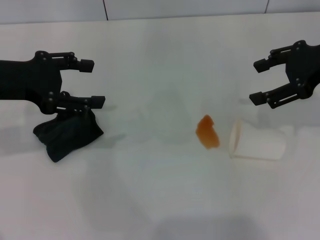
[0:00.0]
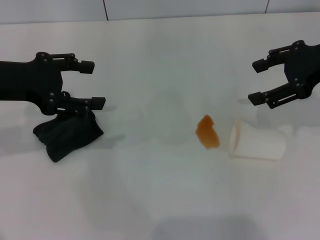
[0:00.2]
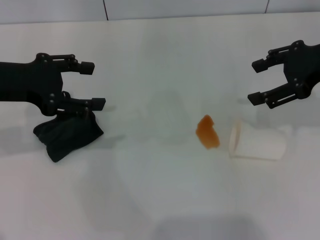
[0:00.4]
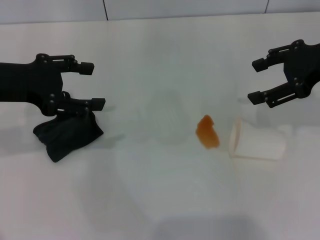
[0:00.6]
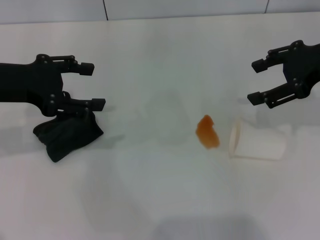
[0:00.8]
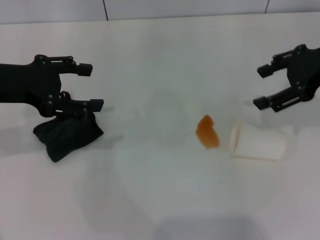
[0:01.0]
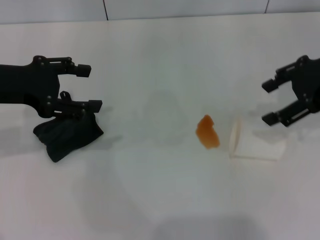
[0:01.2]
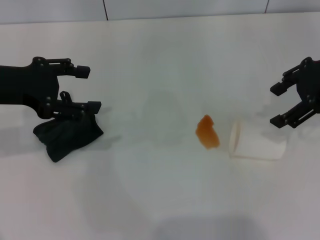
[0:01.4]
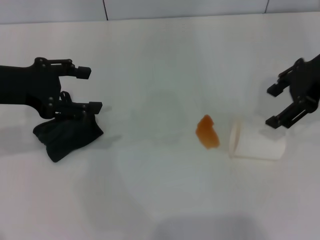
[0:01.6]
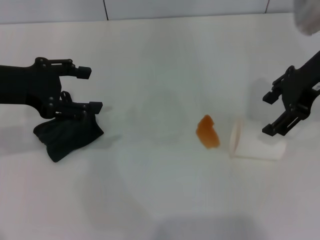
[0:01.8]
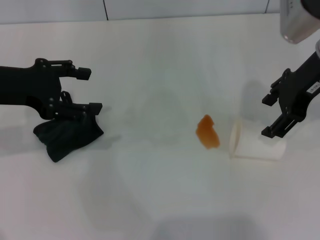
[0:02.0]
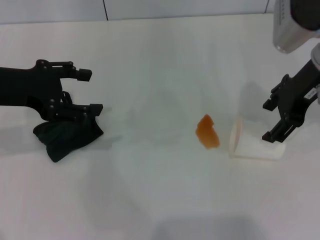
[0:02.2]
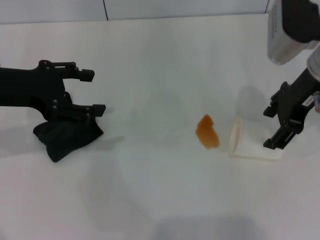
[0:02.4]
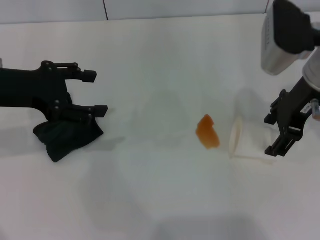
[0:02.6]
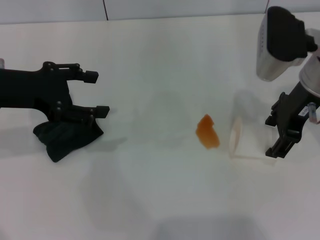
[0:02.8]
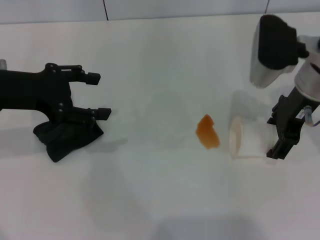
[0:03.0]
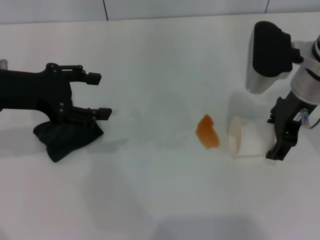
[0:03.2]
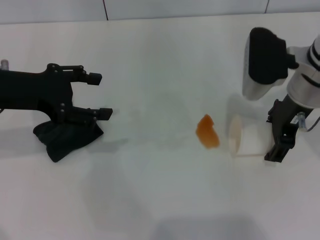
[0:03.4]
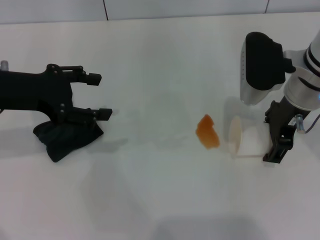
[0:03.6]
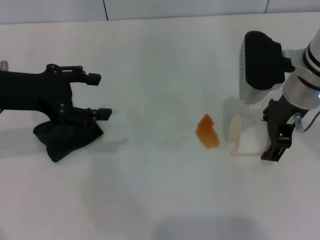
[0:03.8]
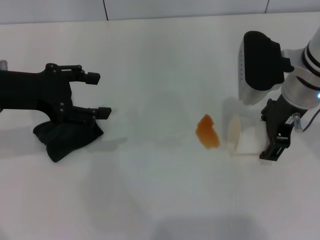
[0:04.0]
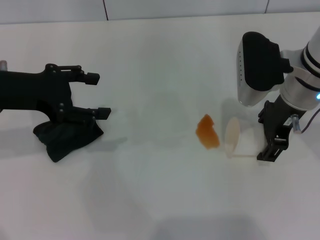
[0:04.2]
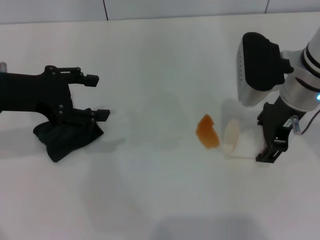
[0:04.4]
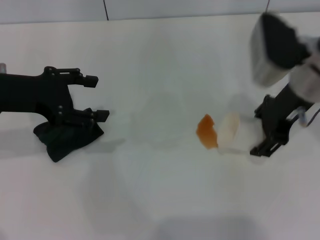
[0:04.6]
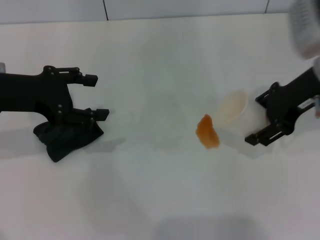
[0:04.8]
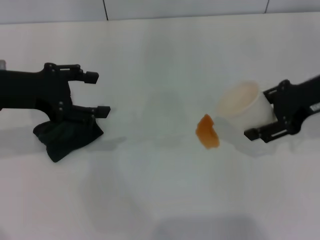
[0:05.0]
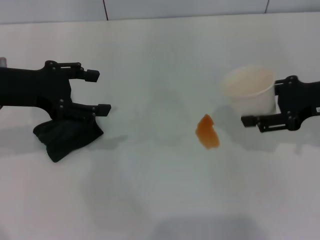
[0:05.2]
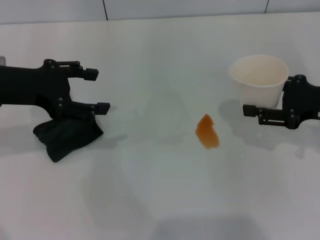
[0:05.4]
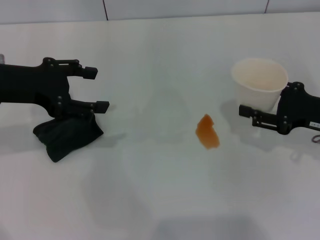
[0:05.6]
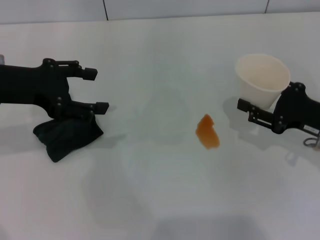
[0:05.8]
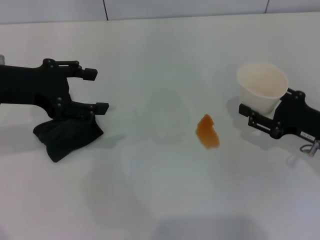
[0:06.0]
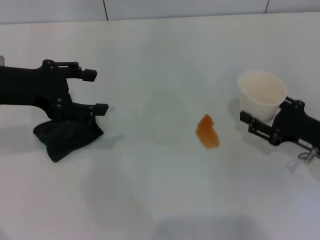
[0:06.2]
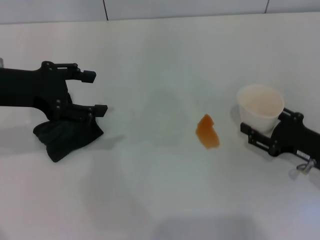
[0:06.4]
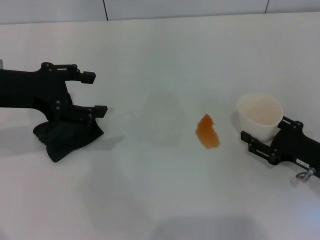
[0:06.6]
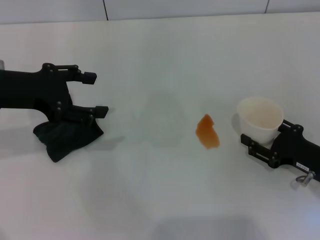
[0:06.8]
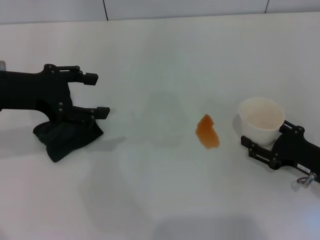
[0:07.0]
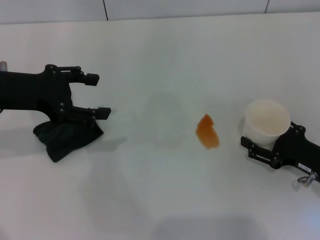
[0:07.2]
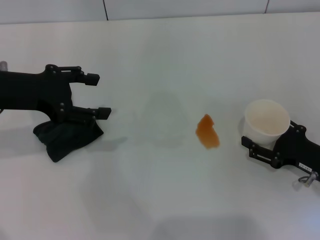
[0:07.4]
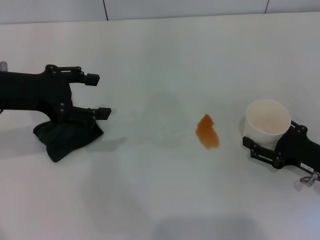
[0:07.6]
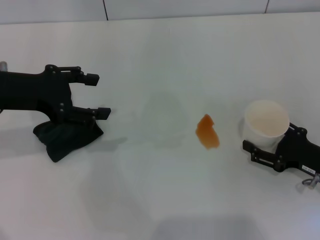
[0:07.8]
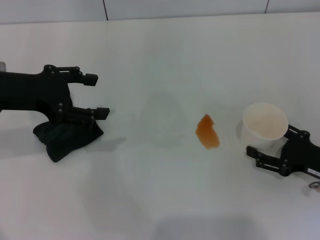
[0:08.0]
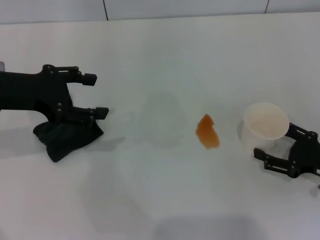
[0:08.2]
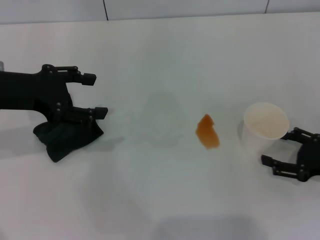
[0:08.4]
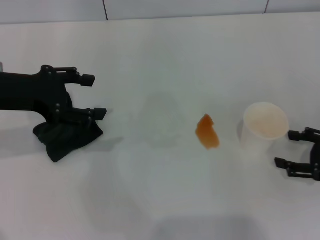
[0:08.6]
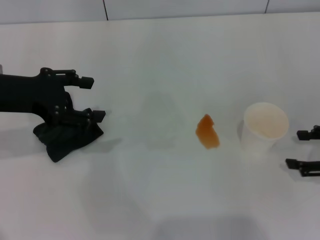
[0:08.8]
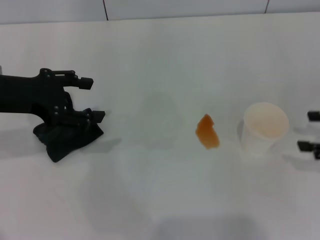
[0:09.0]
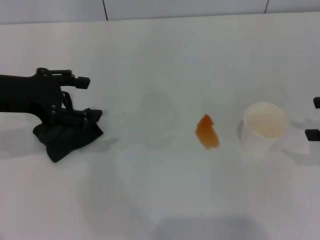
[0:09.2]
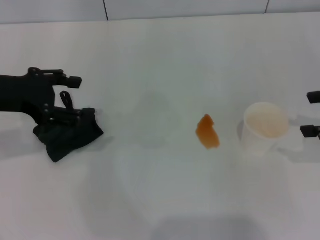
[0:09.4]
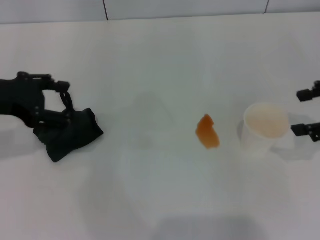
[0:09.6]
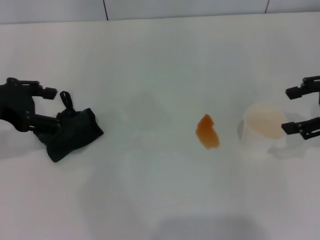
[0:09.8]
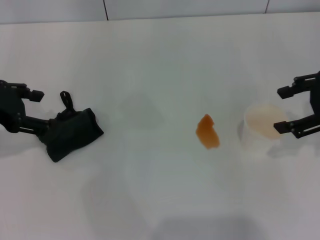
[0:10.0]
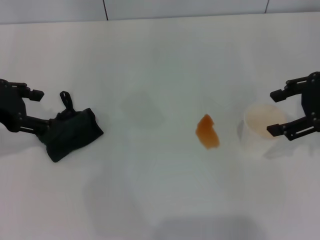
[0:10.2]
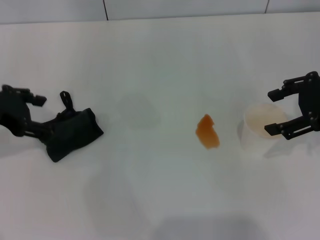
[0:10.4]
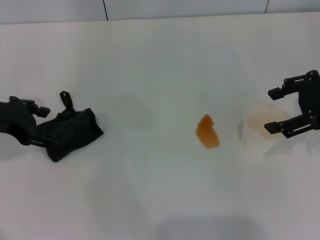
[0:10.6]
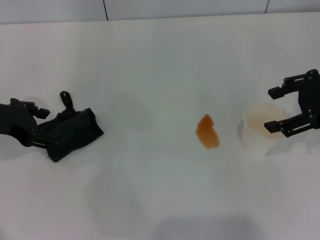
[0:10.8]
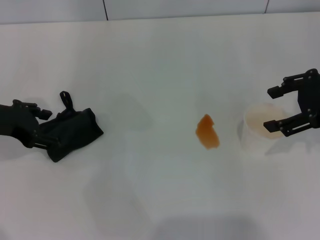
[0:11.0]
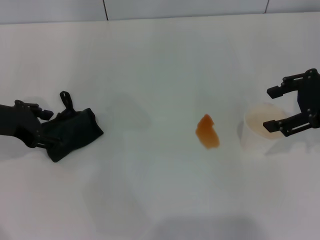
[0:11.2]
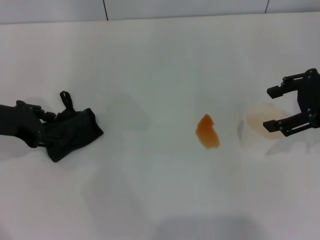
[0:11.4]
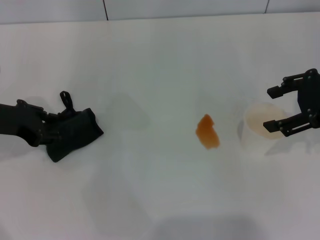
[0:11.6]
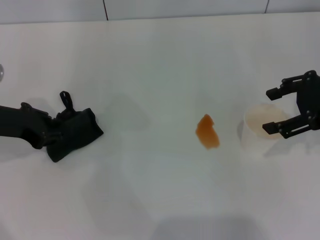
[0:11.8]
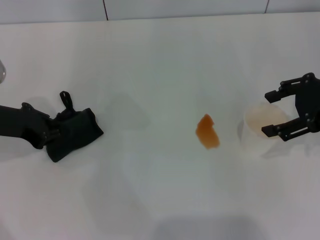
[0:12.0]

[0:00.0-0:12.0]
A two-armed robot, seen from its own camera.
Step, 0:00.0 to 0:04.2: Grasp the paper cup with the right gripper.
Step, 0:04.4 to 0:08.2: Stand the paper cup upright with the right gripper.
0:01.6 to 0:03.0: The right gripper heads downward and to the left, covering roughly 10 cm.
0:03.0 to 0:04.4: The right gripper closes up.
0:04.4 to 0:06.0: The right gripper heads downward, to the right and backward, covering roughly 20 cm, and closes up.
0:06.0 to 0:07.6: The right gripper moves roughly 5 cm, and opens its fingers.
0:07.6 to 0:09.0: The right gripper shifts about 15 cm upward and to the right.
0:09.0 to 0:10.4: The right gripper travels to the left, upward and forward by approximately 10 cm.
0:10.4 to 0:12.0: The left gripper ends up roughly 5 cm from where it was, and closes.

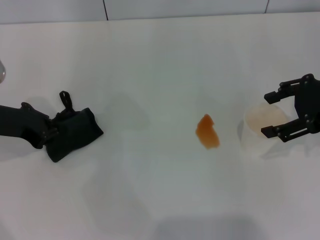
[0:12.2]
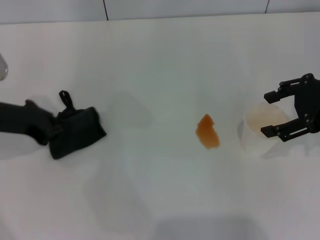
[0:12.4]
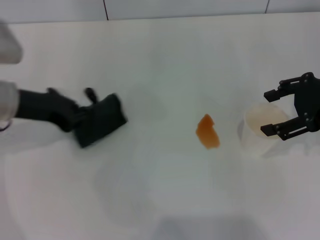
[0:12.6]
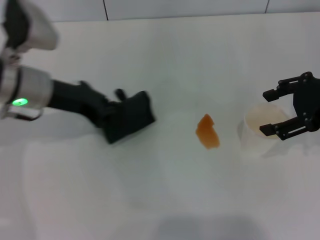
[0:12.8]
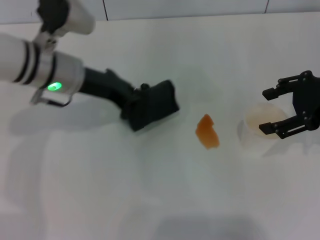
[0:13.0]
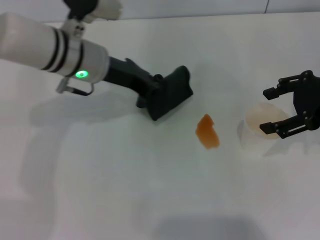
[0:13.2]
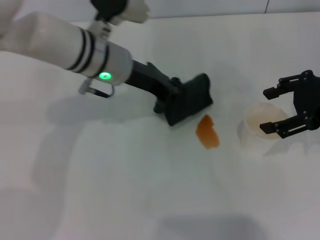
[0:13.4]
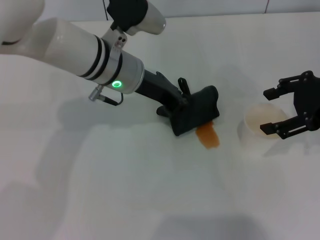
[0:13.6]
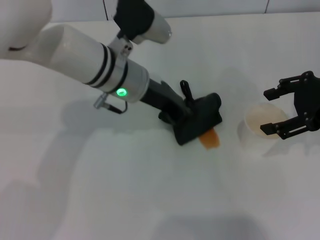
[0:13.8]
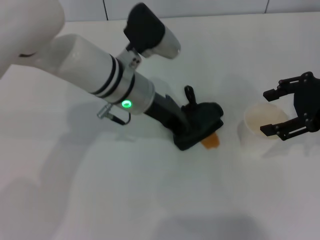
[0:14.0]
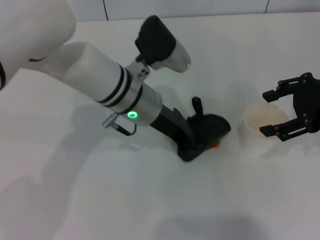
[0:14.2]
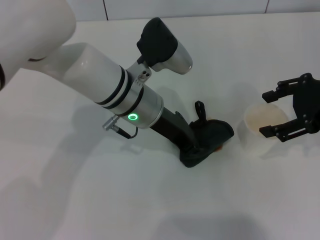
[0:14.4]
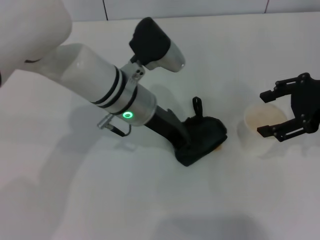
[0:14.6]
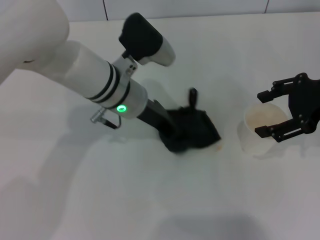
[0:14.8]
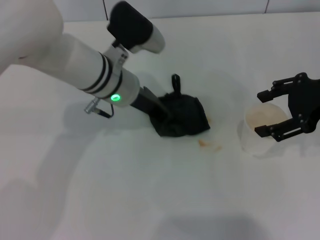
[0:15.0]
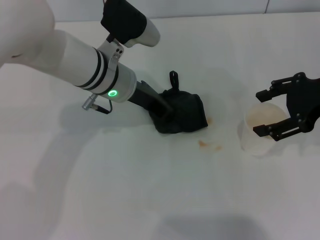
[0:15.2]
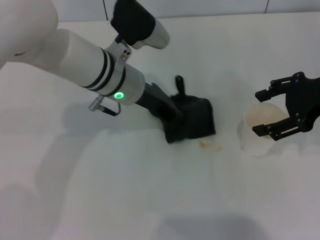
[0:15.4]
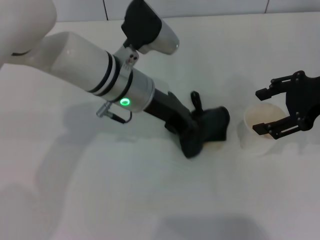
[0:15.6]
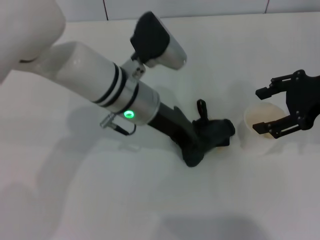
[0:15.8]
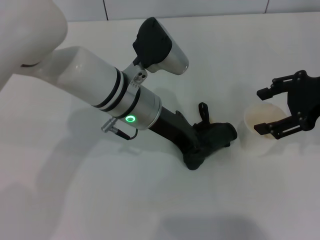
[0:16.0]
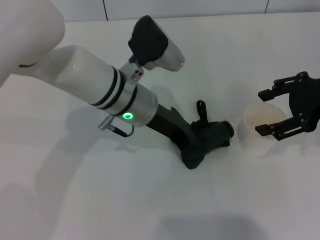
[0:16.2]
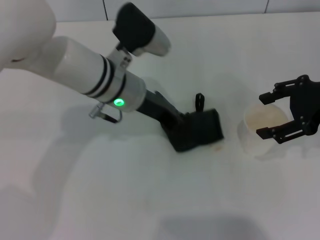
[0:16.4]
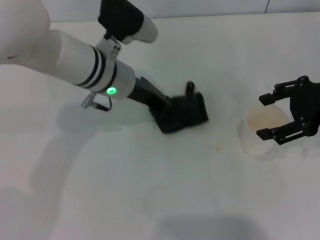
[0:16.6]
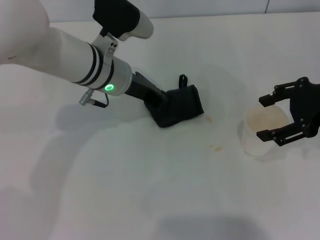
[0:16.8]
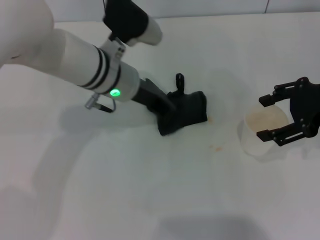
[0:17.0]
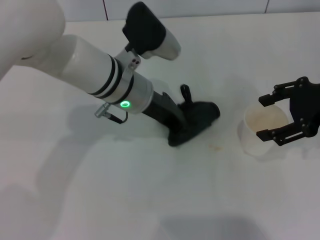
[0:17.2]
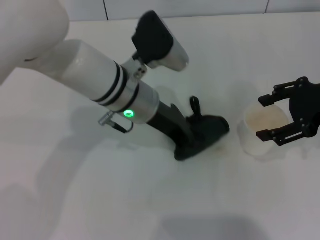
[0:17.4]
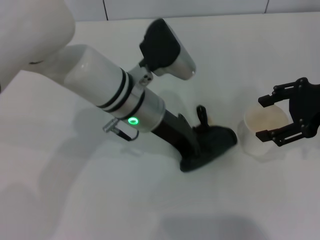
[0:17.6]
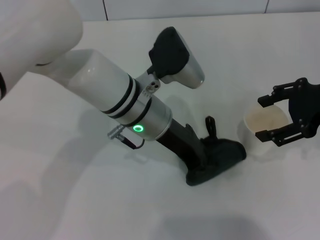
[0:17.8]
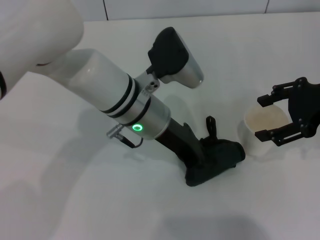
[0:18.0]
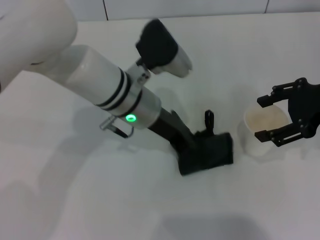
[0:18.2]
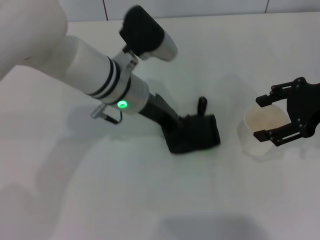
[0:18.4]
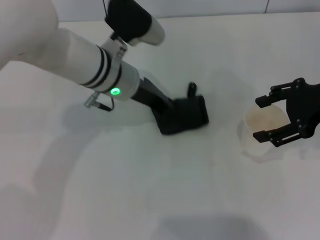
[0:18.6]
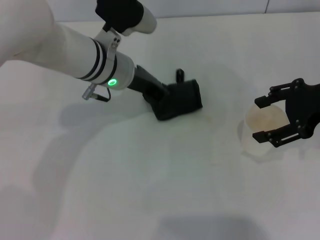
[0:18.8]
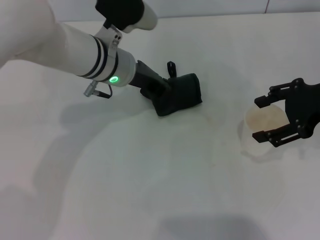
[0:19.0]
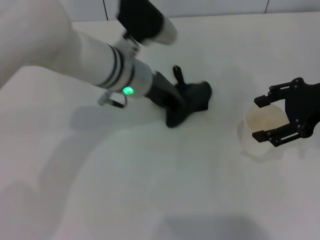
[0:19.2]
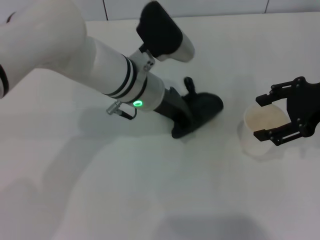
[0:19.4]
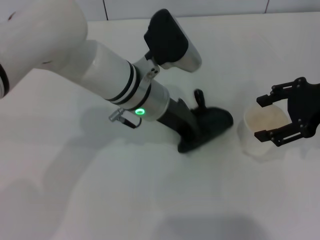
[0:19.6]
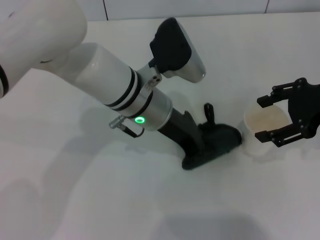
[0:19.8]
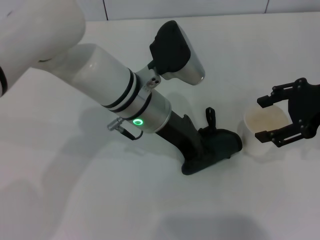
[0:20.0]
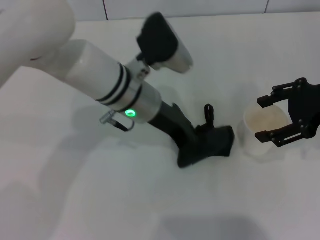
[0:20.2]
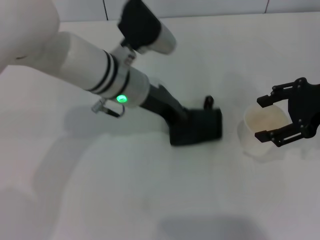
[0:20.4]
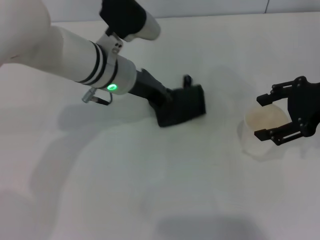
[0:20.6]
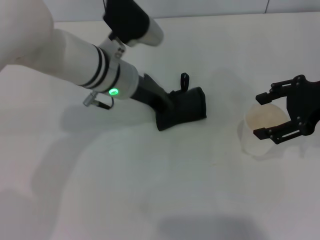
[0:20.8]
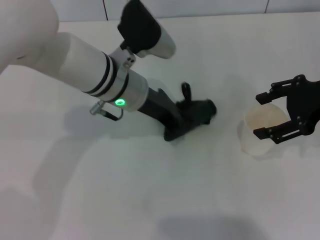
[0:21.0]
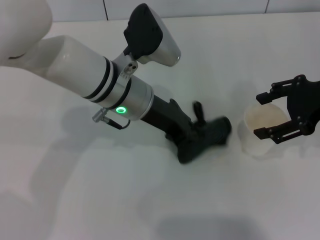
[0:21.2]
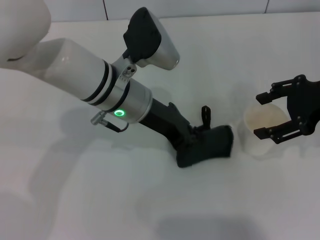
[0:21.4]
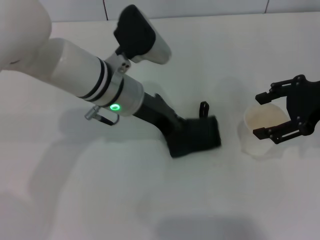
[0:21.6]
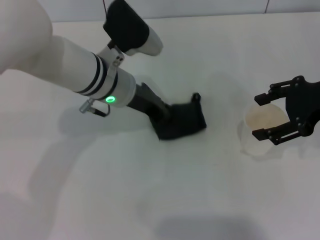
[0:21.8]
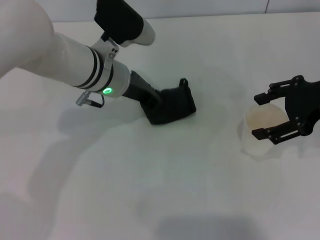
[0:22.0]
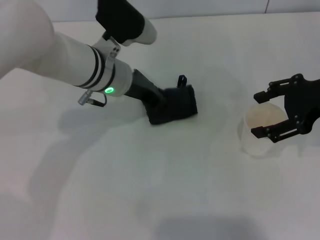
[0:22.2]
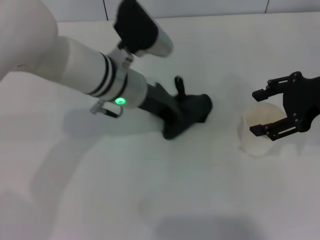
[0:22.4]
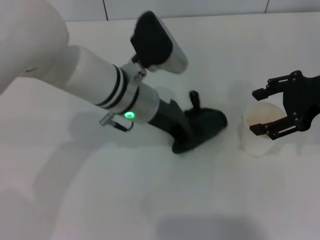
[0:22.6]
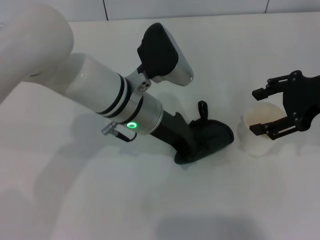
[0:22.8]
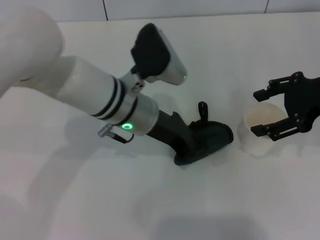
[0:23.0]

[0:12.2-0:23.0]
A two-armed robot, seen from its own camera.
0:12.2 to 0:13.8: The left gripper goes about 20 cm to the right.
0:13.8 to 0:16.8: There are only small adjustments of the grippers.
0:18.4 to 0:20.0: The grippers stay close to where they were, moving slightly.
